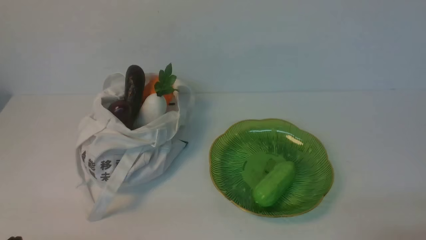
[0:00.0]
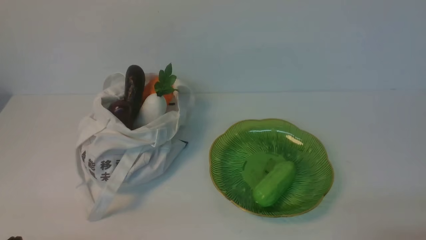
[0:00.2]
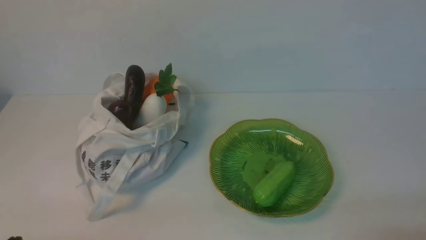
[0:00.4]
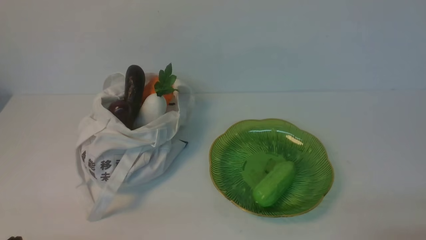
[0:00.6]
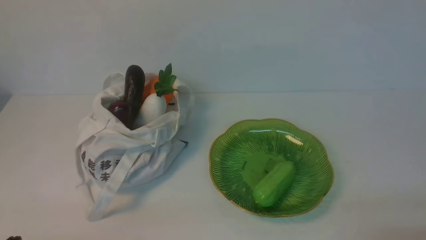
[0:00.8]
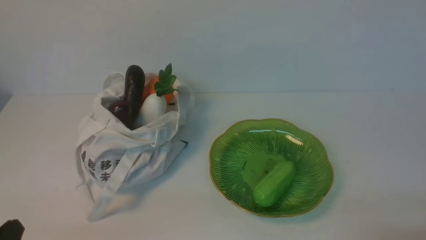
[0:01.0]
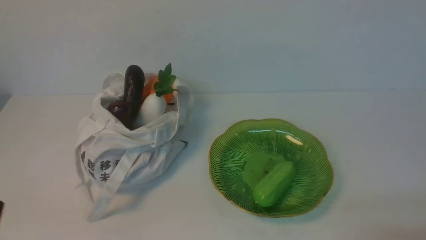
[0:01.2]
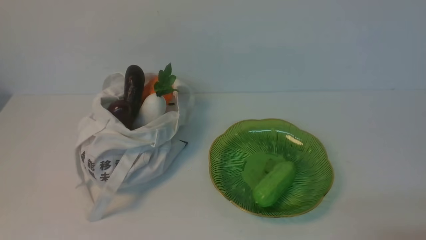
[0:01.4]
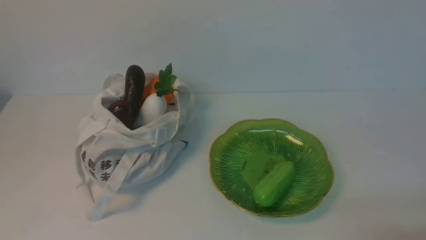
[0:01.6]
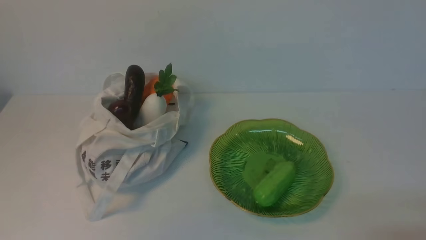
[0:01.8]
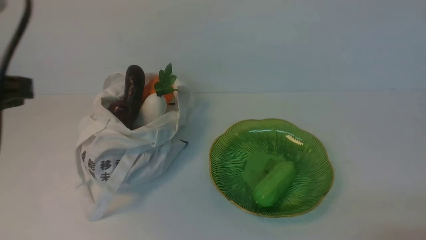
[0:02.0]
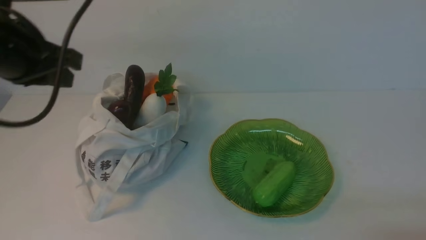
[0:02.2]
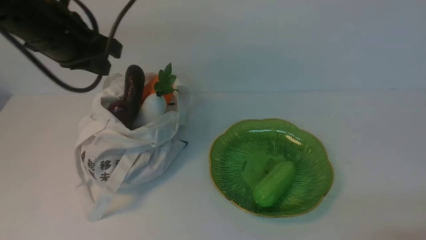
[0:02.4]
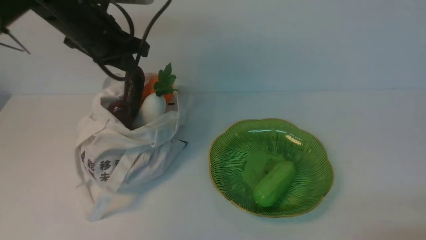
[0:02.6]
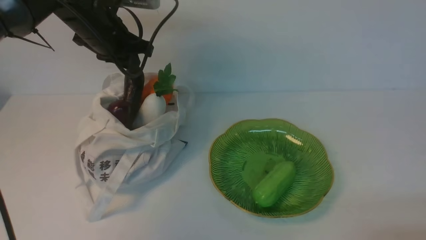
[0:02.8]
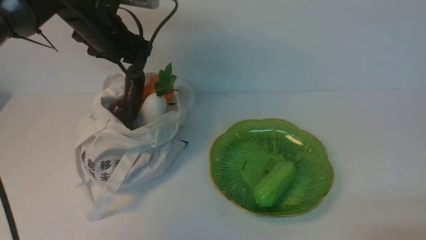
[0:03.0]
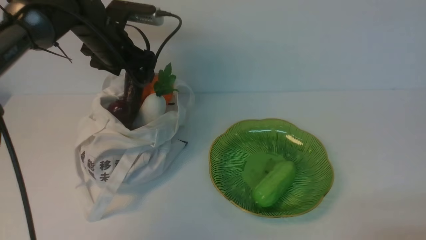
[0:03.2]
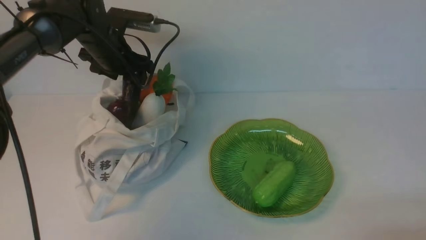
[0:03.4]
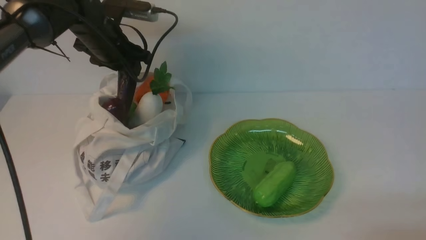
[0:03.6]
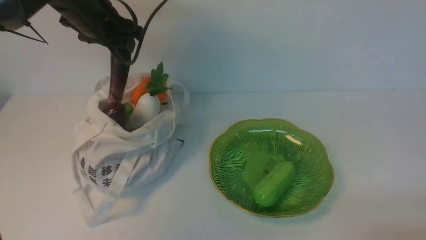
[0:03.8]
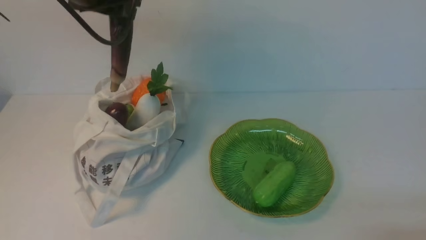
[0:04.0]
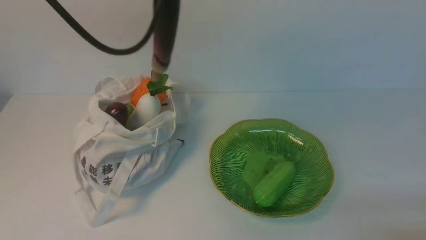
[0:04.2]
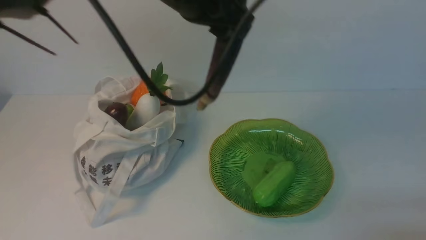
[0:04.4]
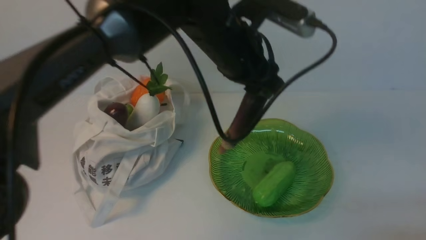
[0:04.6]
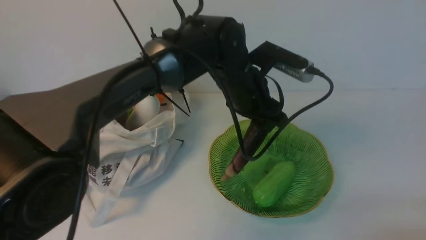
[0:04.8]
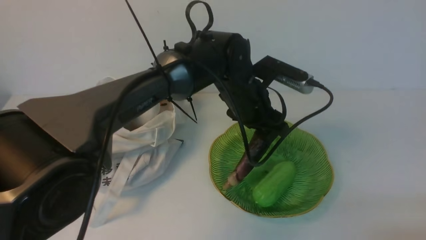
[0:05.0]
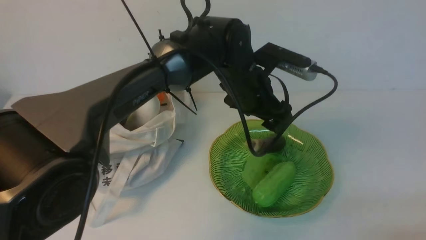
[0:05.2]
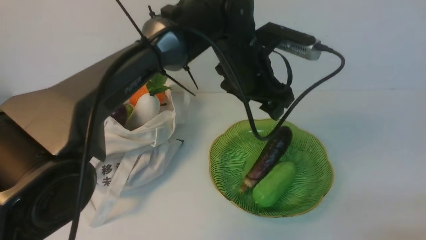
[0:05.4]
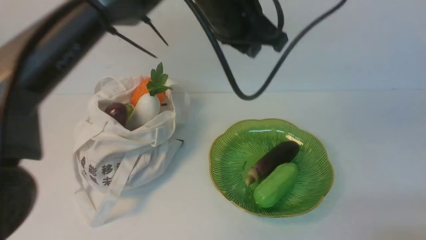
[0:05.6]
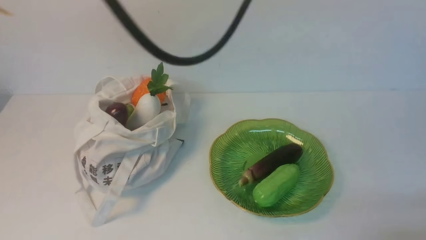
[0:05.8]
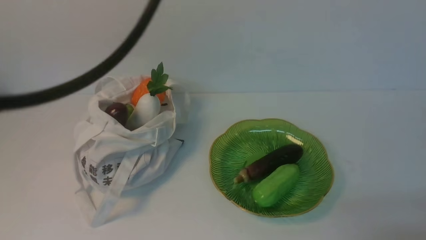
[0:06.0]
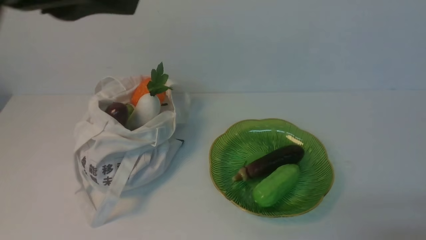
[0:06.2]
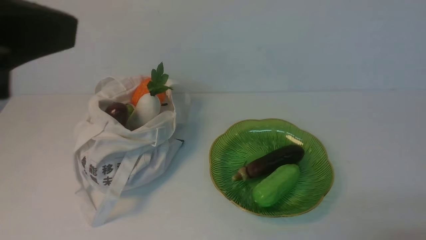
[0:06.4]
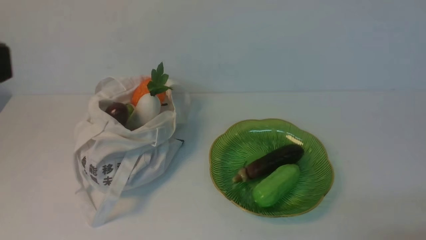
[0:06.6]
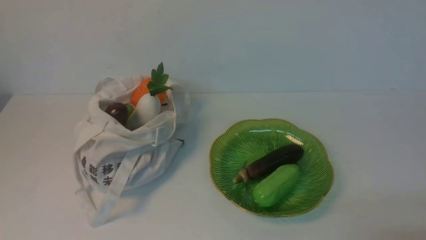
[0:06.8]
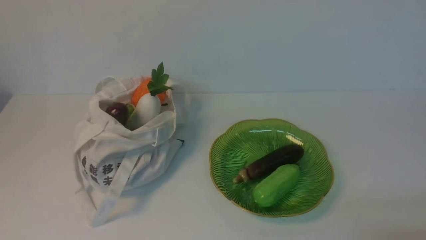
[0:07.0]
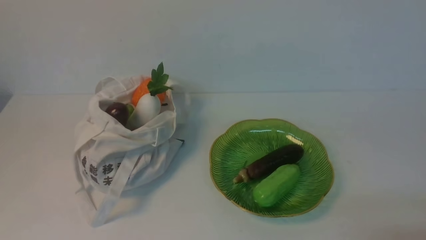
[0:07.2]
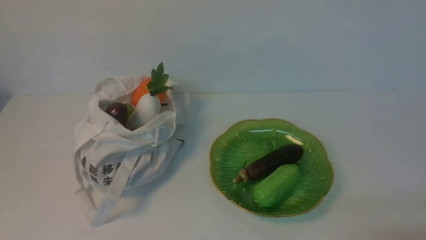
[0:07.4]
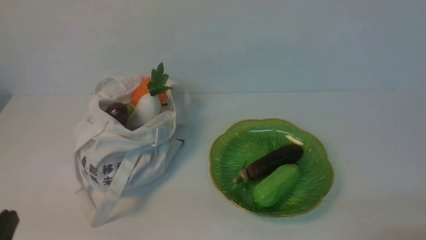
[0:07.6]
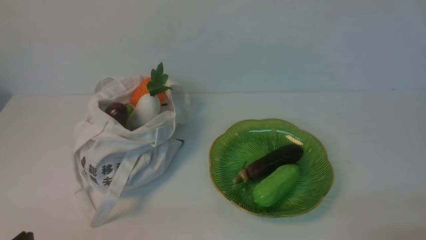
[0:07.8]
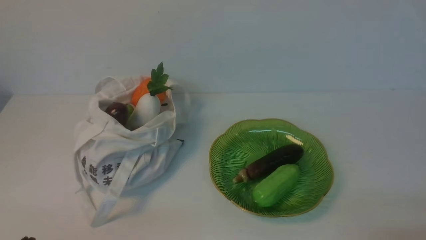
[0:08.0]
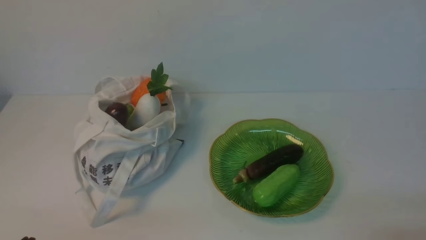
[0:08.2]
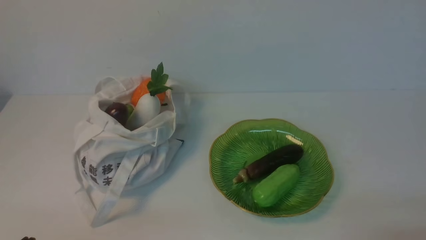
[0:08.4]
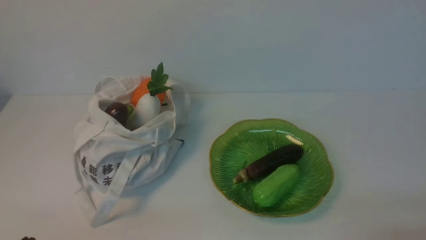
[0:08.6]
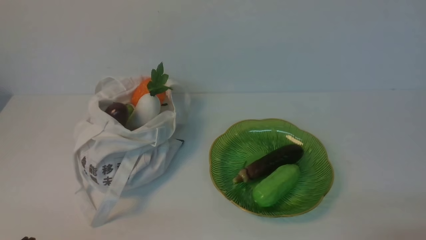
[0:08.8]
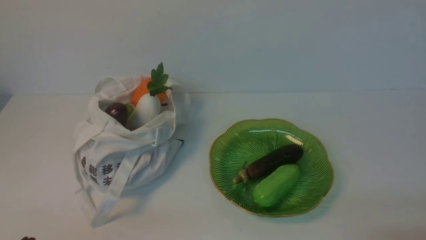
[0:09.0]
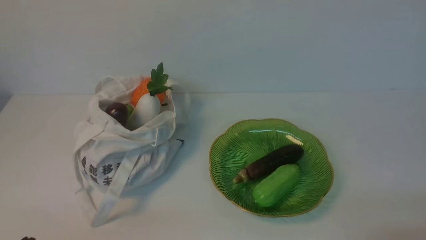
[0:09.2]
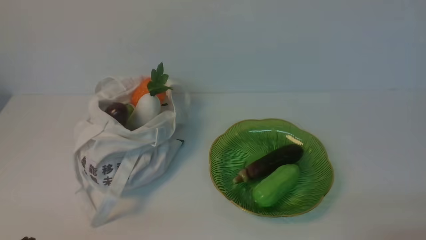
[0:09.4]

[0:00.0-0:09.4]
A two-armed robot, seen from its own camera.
Task of the whole recording: take vegetables from cloth bag on white table place on plate.
Step, 0.0 to 3.4 s: Grasp the eggplant with left gripper.
Step, 3.6 to 5.2 s: Place the eggplant on the plate with left gripper.
1.6 to 3.2 s: The left gripper shifts roughly 40 cm forward, and opens up.
3.2 to 4.8 s: The left gripper goes roughly 25 cm to the right.
4.8 to 6.2 s: The left gripper travels upward, backward and to the left by roughly 35 cm, and closes up.
6.2 to 7.8 s: The left gripper moves downward, about 35 cm.
7.8 to 9.4 s: The two grippers keep their place.

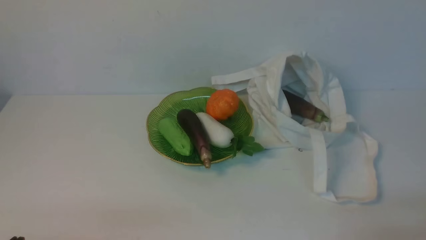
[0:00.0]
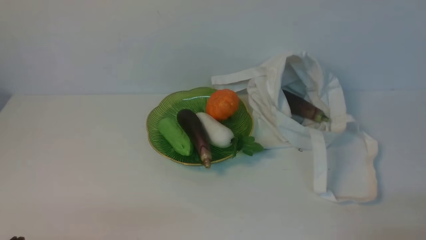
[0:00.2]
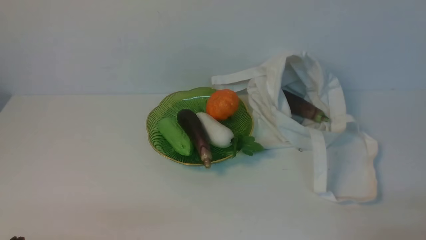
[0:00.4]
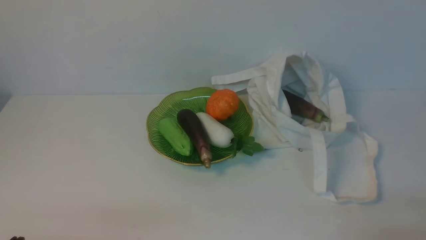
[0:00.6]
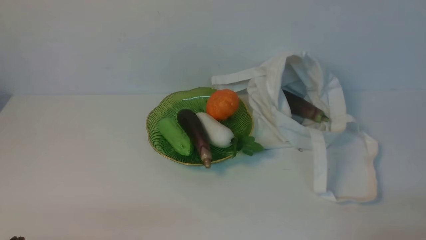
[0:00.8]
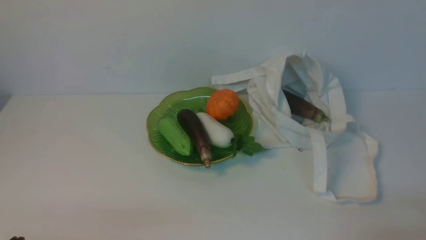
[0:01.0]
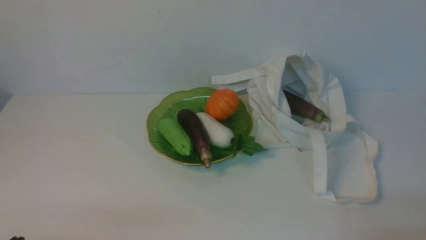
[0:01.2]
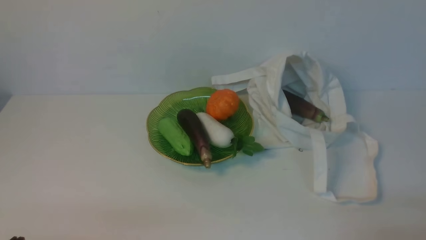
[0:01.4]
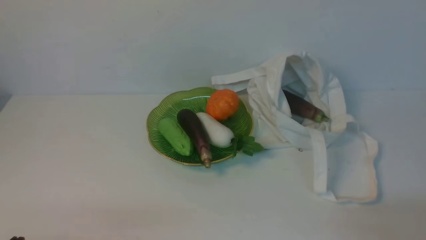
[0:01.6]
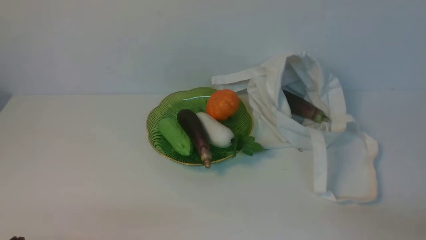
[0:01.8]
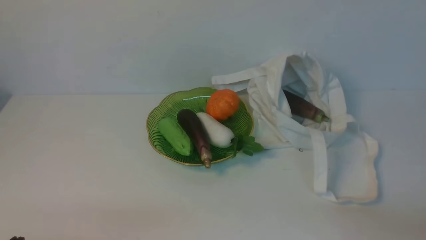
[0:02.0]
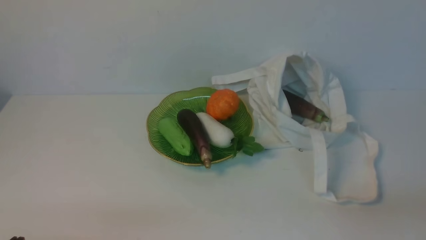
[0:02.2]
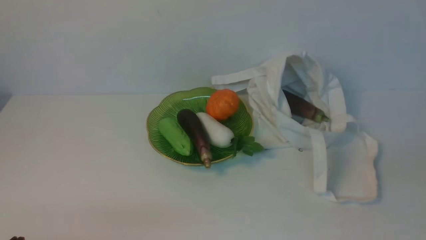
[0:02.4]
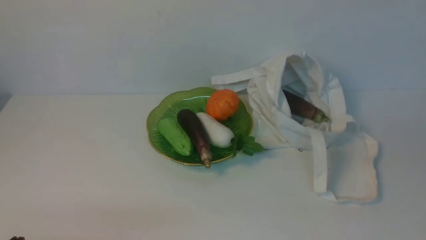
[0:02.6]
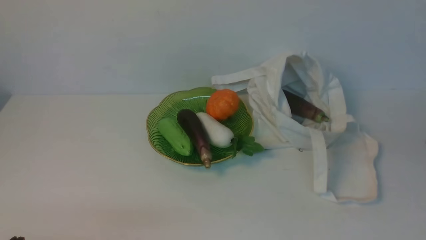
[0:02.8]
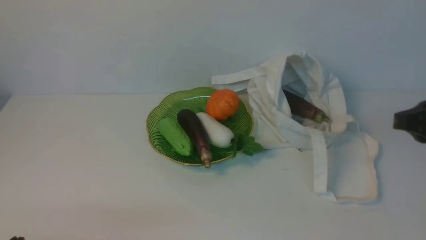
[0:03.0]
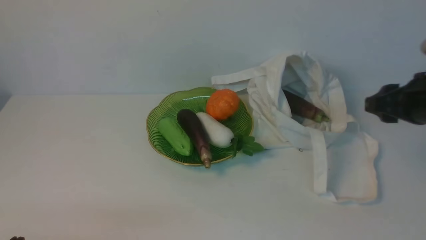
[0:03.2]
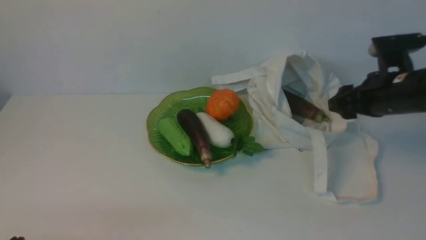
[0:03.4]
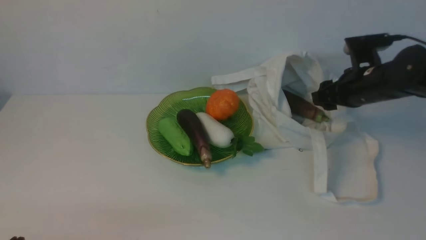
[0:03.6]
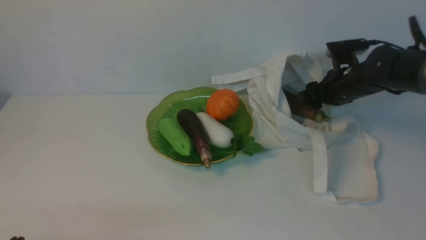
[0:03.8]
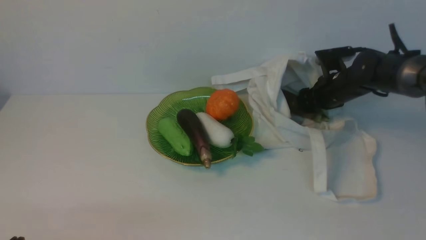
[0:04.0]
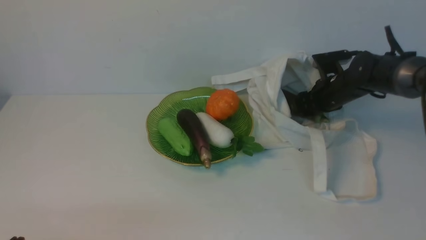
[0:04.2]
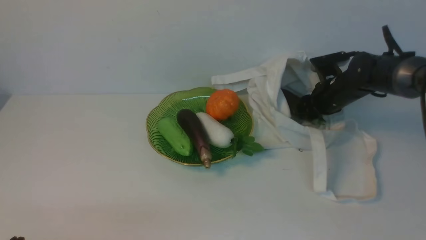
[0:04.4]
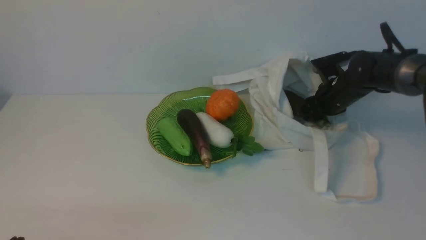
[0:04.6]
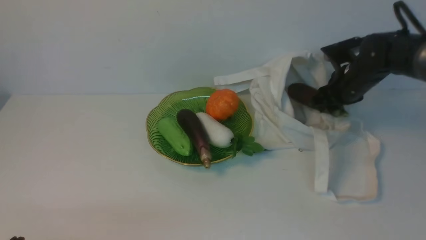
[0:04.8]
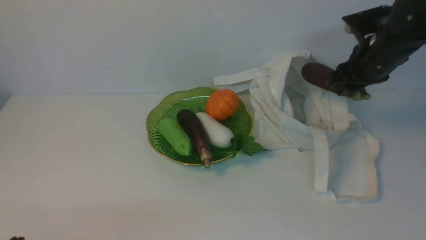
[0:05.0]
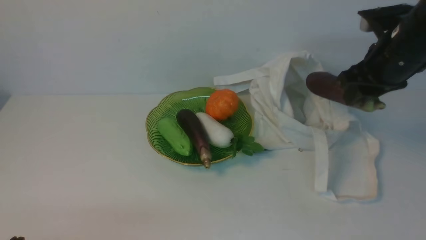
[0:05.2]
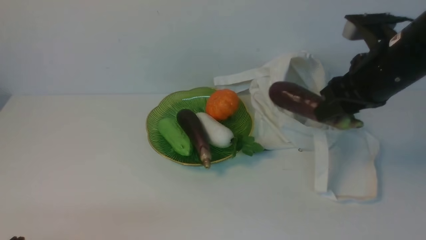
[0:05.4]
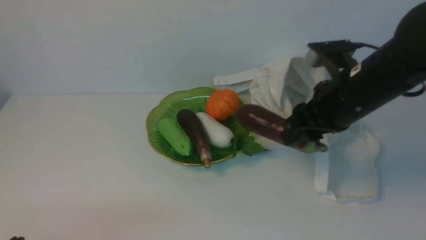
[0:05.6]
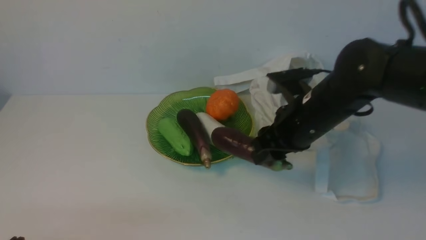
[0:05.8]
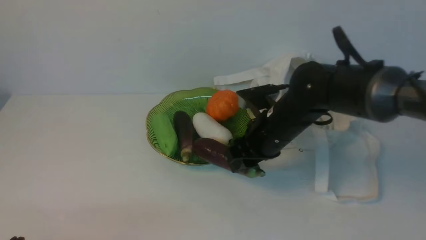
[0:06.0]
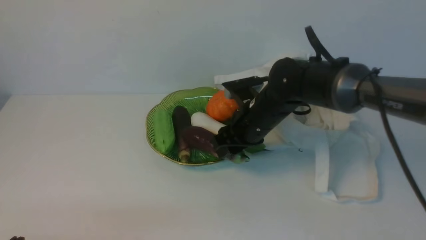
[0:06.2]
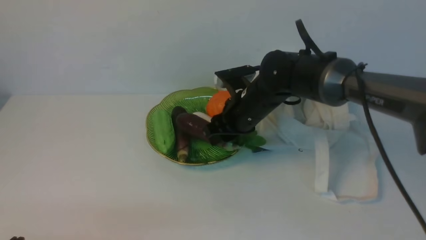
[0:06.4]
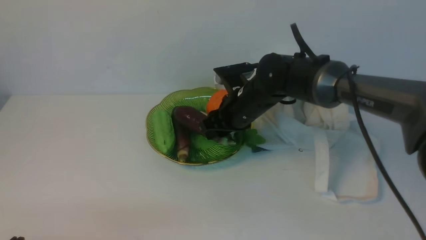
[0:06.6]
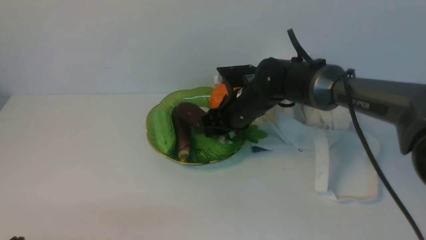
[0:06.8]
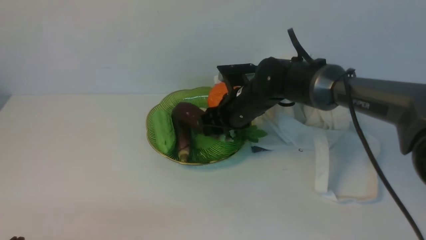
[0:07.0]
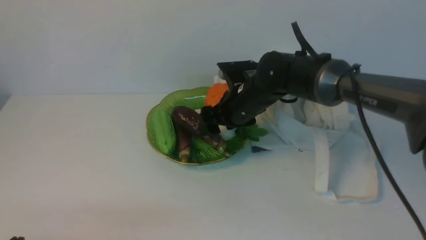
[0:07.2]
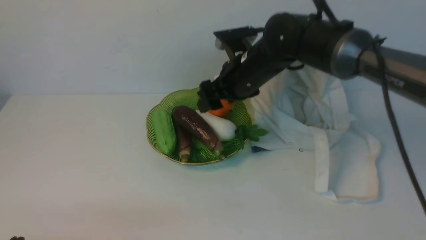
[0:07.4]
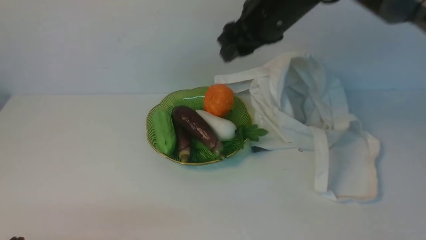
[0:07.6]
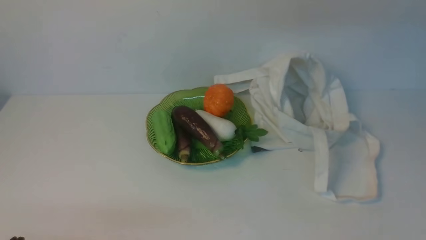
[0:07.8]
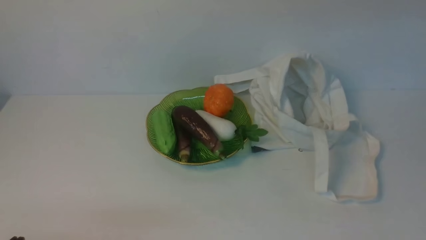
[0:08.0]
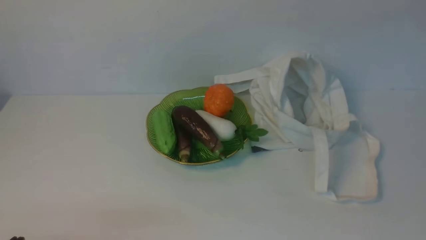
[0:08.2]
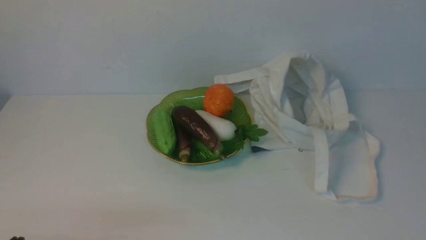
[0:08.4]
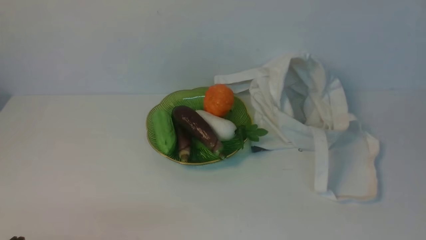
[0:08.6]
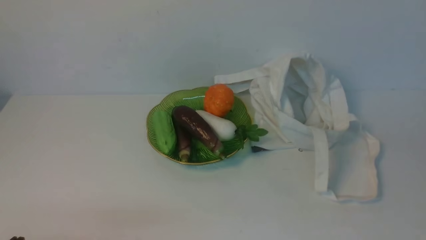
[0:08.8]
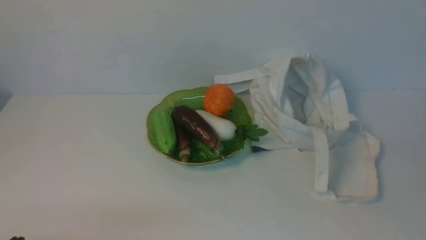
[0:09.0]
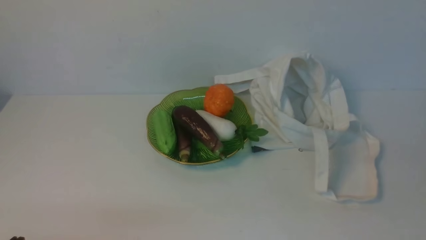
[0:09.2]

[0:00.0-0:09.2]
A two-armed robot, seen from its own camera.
Task of the whole recording: take vegetables from cloth bag on white table place on plate.
Step, 0.0 to 4.4 s: Grasp the eggplant with right gripper.
Step, 4.6 to 7.2 s: Place the eggplant on the plate with right gripper.
1.6 to 3.0 s: The right gripper moves forward and upward, approximately 20 cm, and opens.
3.0 to 4.6 s: The right gripper goes roughly 25 cm forward and downward.
4.6 to 6.2 s: The right gripper is displaced to the left and backward by some 20 cm.
6.2 to 7.6 s: The right gripper travels upward by approximately 20 cm, and opens and closes again.
7.6 to 9.2 s: The right gripper is displaced backward and to the right by roughly 40 cm, and closes.
